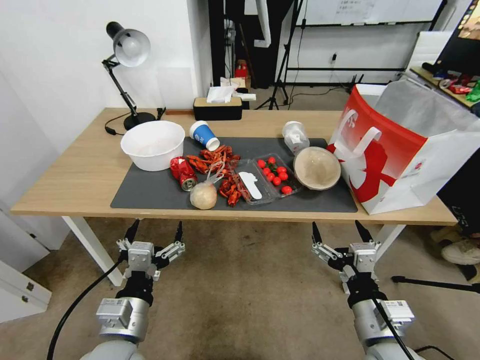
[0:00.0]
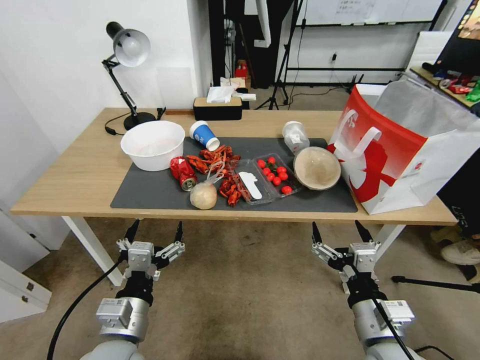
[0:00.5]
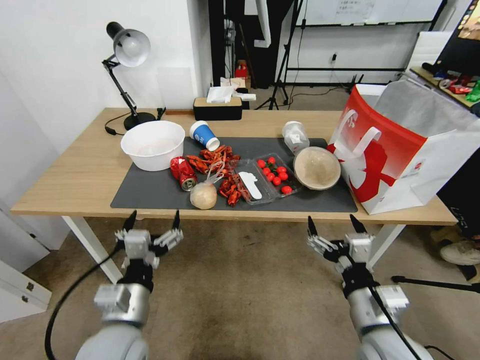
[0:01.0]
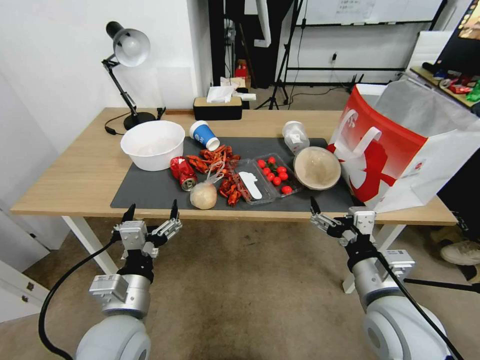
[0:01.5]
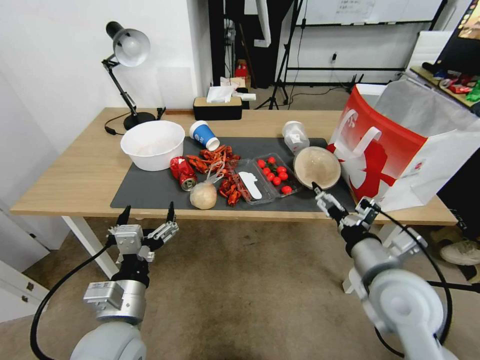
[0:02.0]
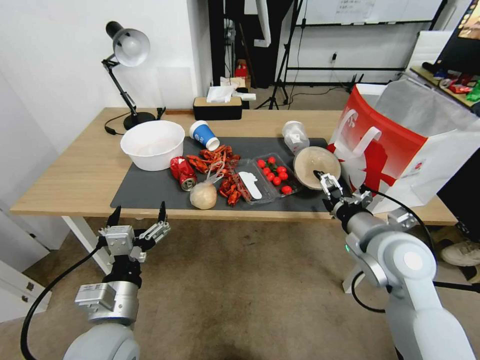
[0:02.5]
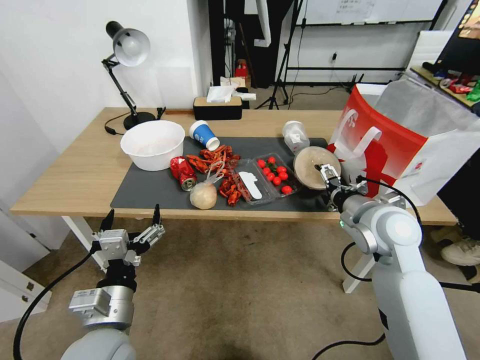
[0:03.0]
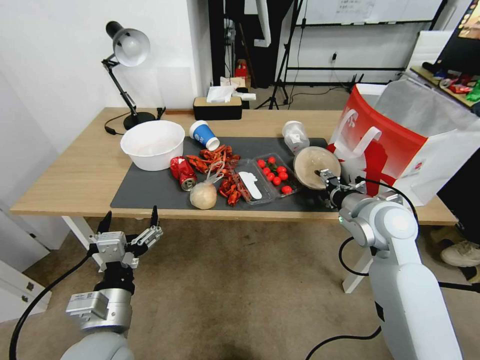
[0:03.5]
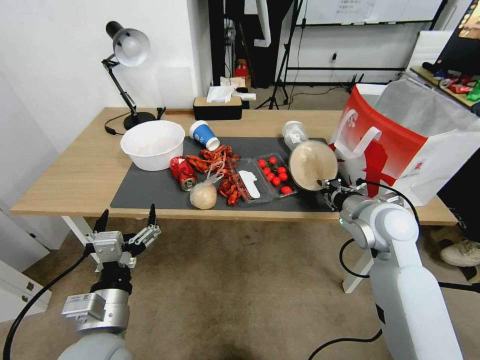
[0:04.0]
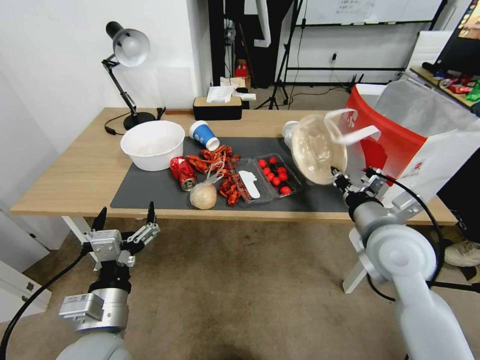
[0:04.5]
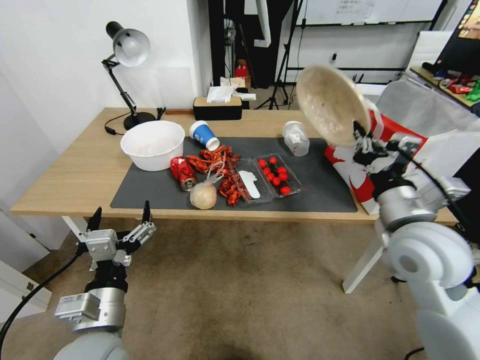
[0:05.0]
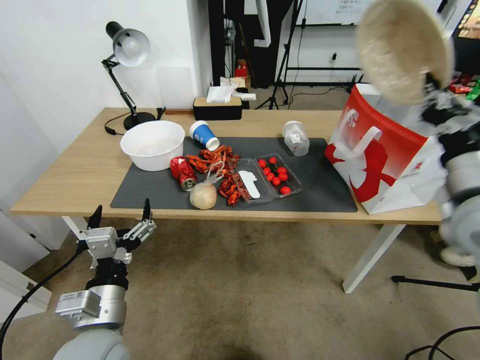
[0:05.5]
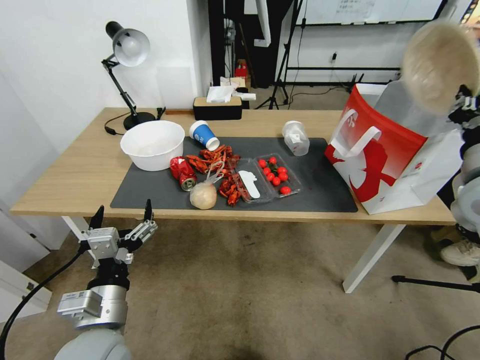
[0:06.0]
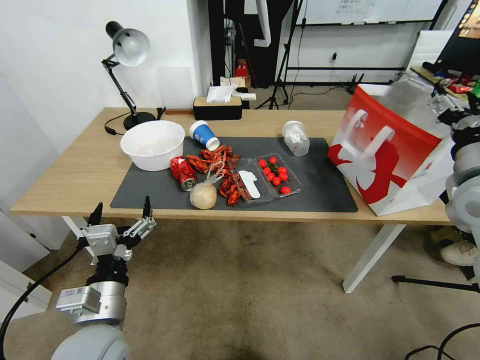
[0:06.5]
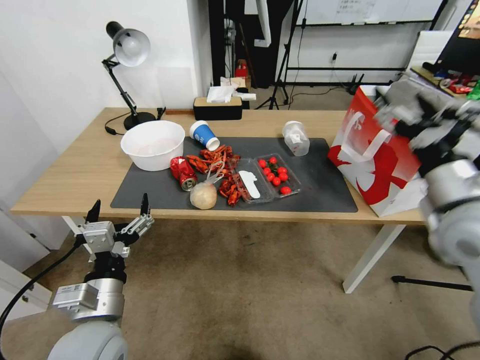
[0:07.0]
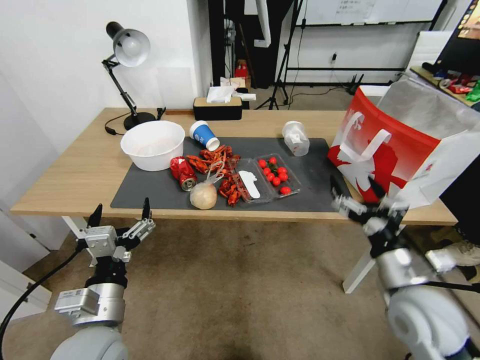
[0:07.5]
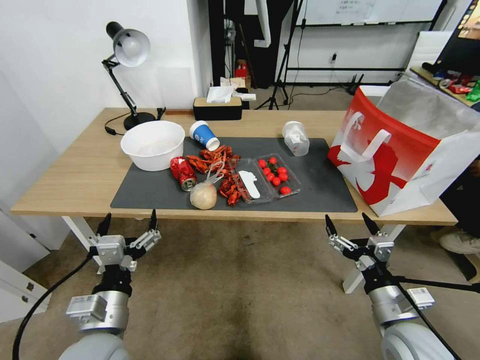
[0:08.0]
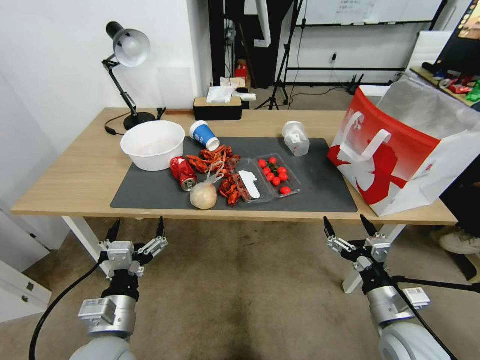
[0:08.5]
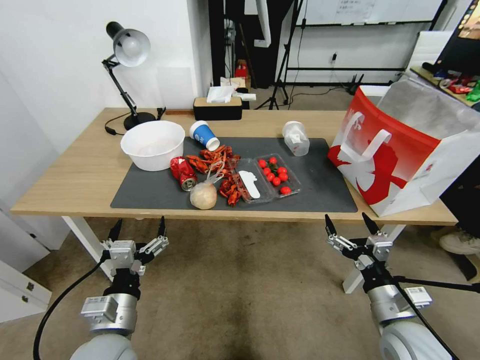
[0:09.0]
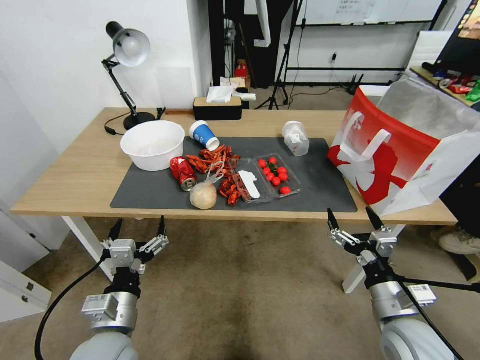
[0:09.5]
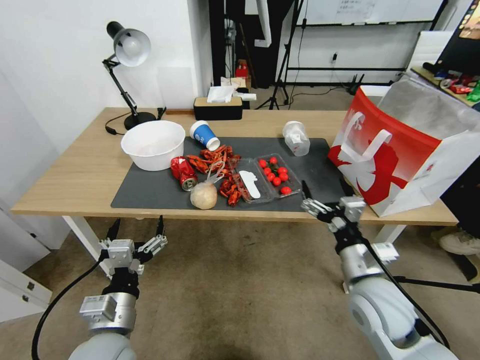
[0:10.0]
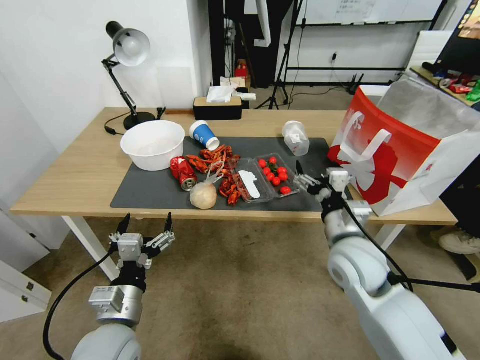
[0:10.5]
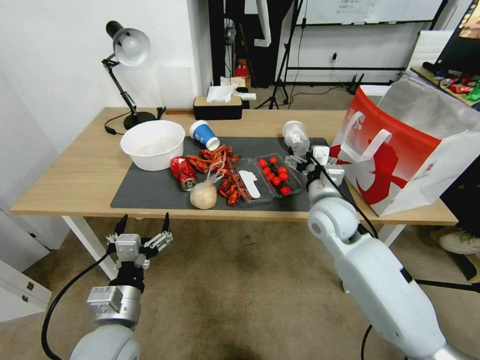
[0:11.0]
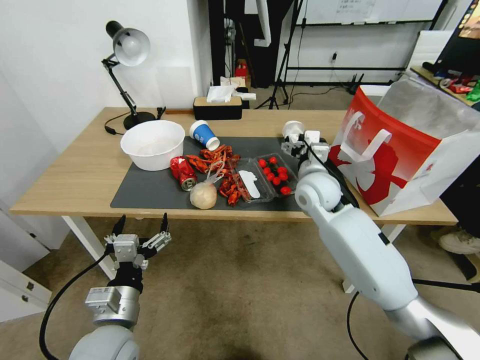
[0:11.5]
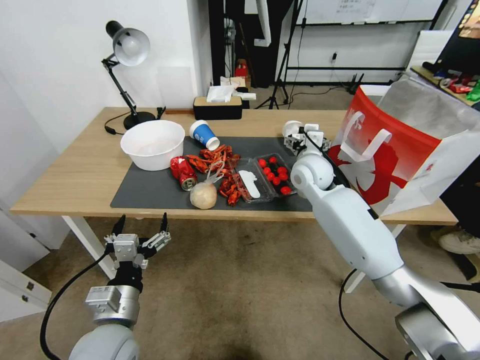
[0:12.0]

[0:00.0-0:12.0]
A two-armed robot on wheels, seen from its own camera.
0:02.0 to 0:04.0: The right gripper is displaced forward by some 10 cm, and closes up.
0:04.0 to 0:06.0: The right gripper goes some 15 cm to the right and upward.
0:06.0 to 0:08.0: The right gripper goes about 30 cm downward and backward, and opens its fingers.
0:08.0 to 0:10.0: The right gripper heads to the left, forward and upward, covering roughly 10 cm.
0:10.0 to 0:12.0: The right gripper shifts about 25 cm forward.

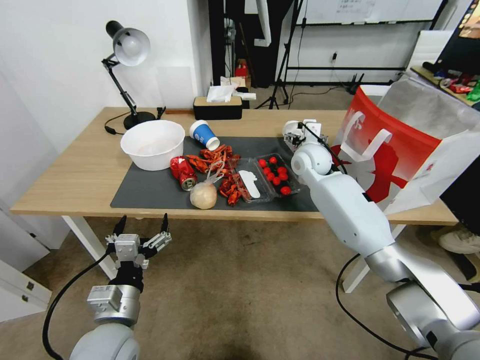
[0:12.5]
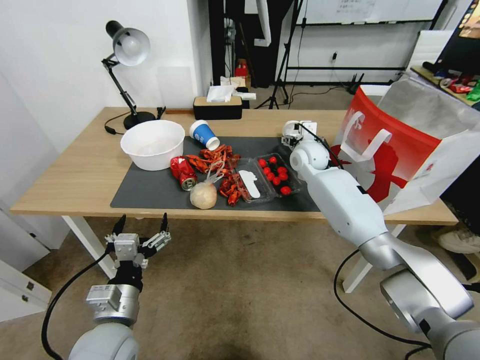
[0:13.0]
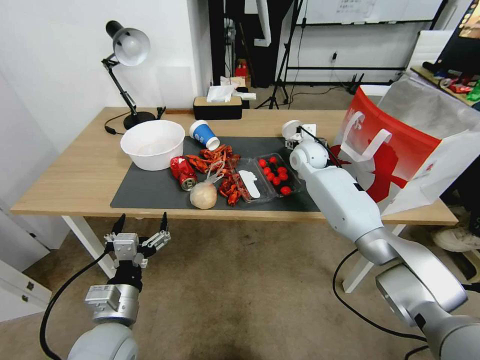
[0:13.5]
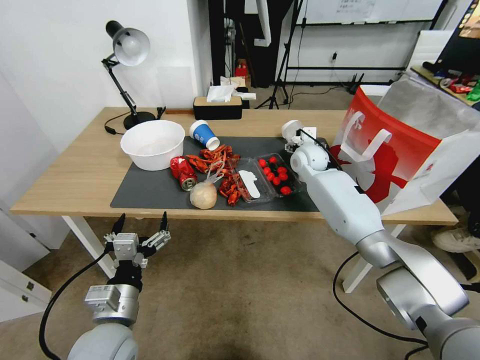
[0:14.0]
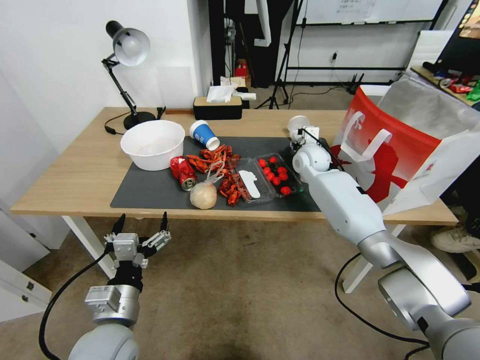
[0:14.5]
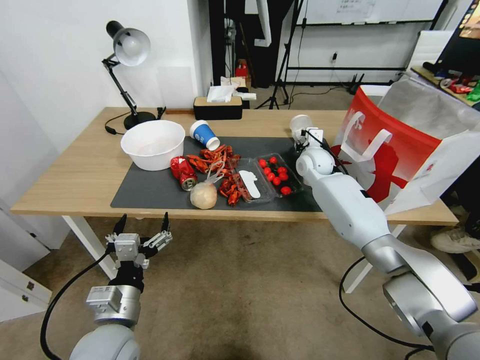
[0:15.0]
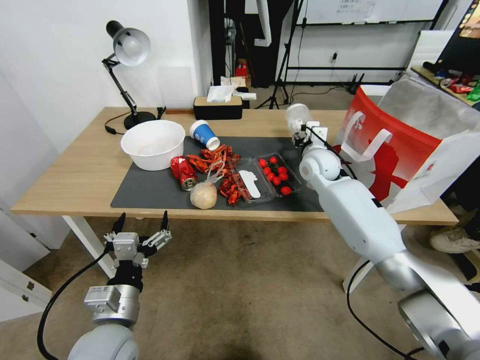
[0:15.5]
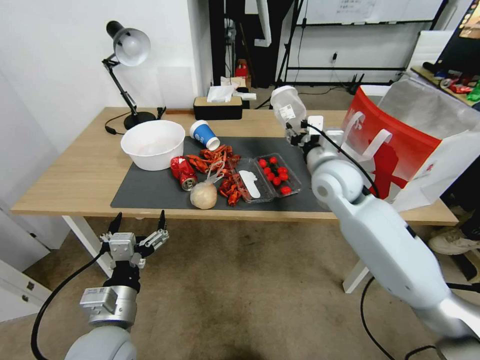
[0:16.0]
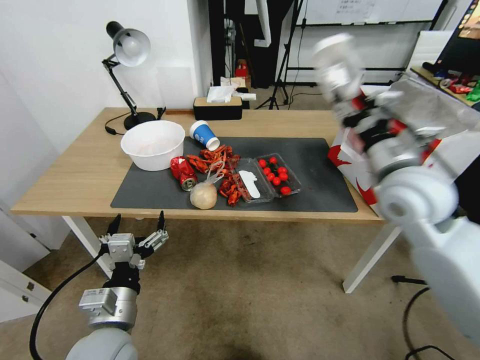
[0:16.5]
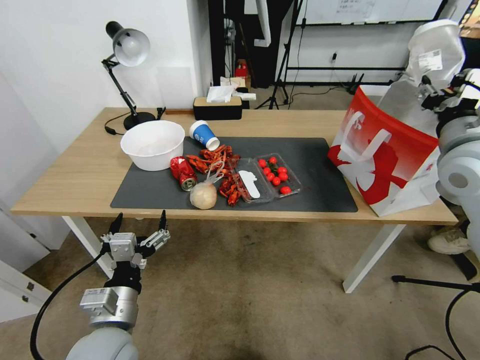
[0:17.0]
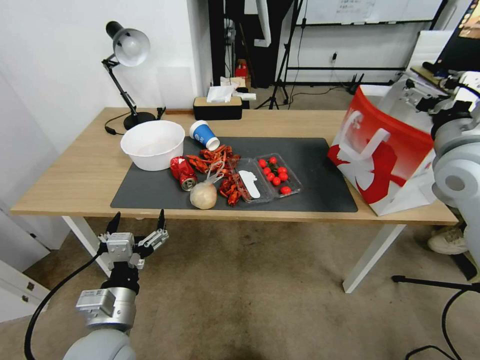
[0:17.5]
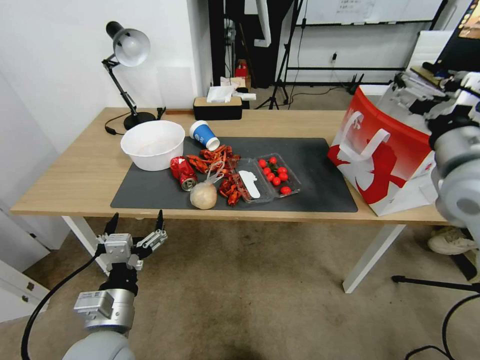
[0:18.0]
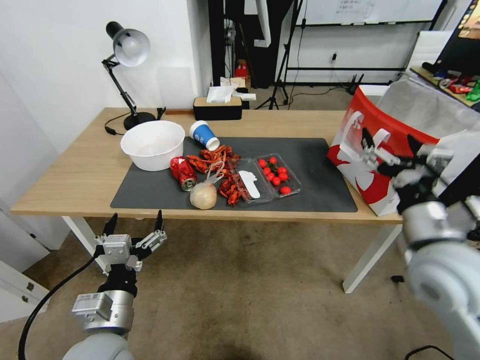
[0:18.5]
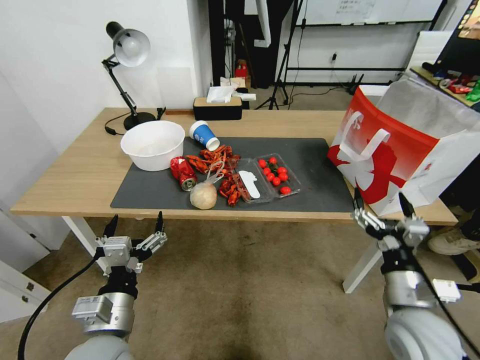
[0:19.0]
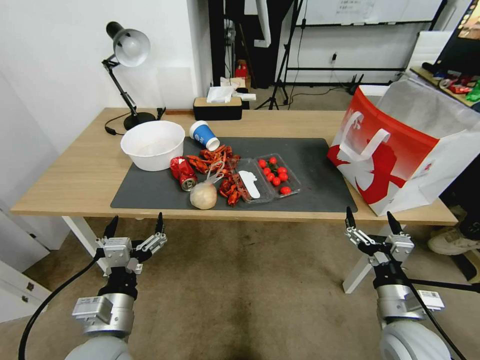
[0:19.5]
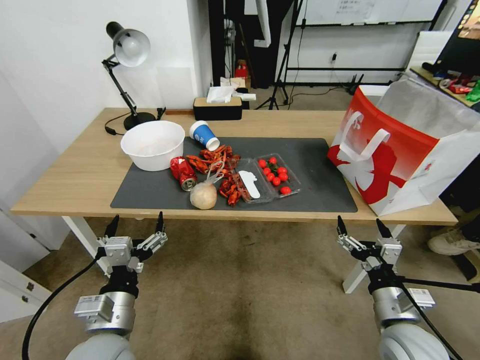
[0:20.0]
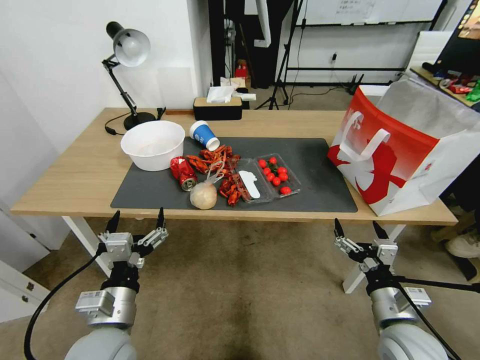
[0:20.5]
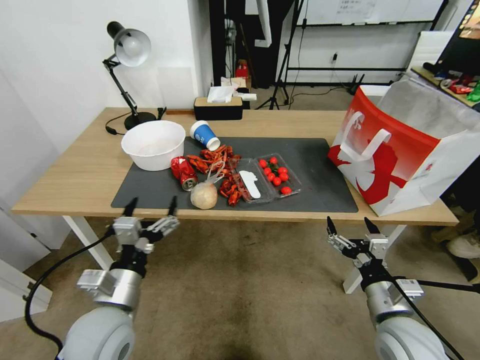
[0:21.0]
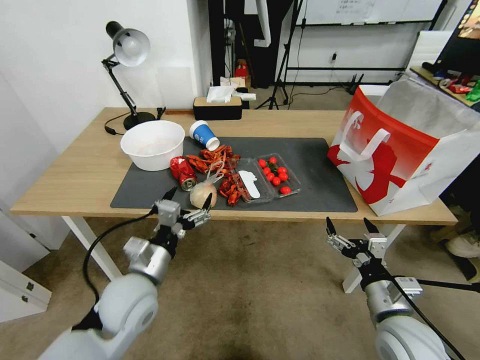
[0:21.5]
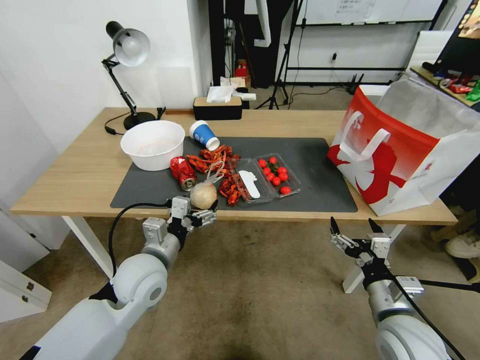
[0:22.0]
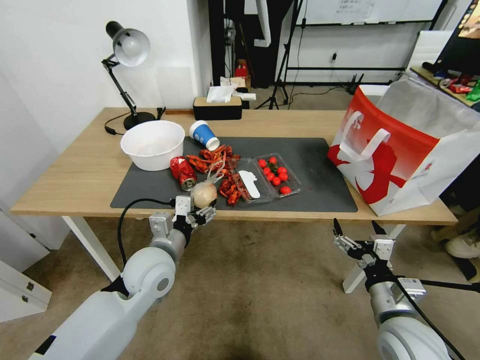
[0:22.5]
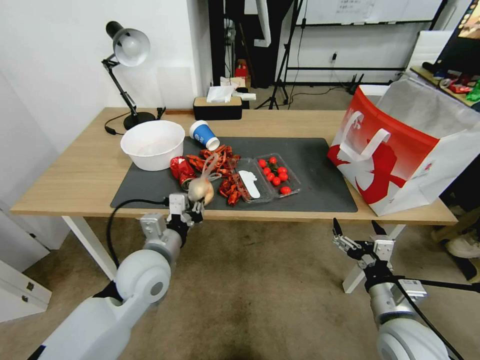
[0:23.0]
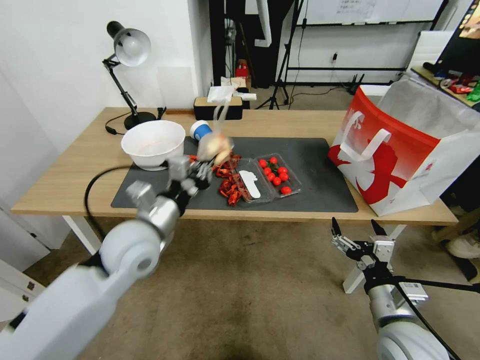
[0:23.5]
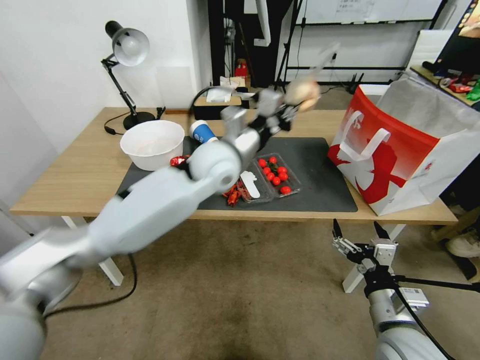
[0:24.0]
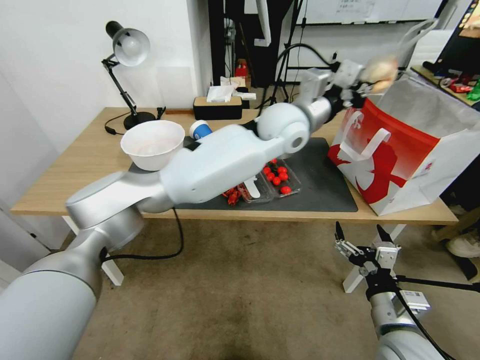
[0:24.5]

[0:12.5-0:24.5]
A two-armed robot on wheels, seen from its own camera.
0:12.5 to 0:14.5: The right gripper moves some 5 cm.
0:14.5 to 0:16.5: The right gripper travels backward and upward by roughly 30 cm.
0:16.5 to 0:18.5: The right gripper is displaced backward and downward by approximately 15 cm, and opens its fingers.
0:18.5 to 0:20.5: The right gripper moves downward, about 20 cm.
0:20.5 to 0:22.5: The left gripper shifts roughly 15 cm forward.
0:22.5 to 0:24.5: The left gripper heads to the right, upward and forward, covering approximately 40 cm, and closes.

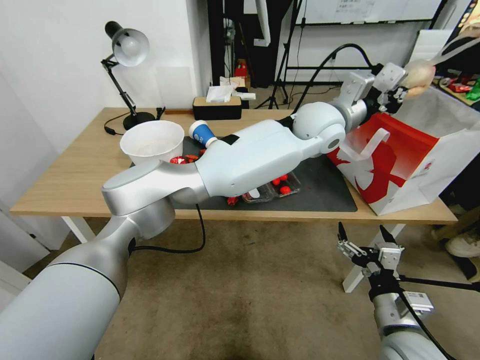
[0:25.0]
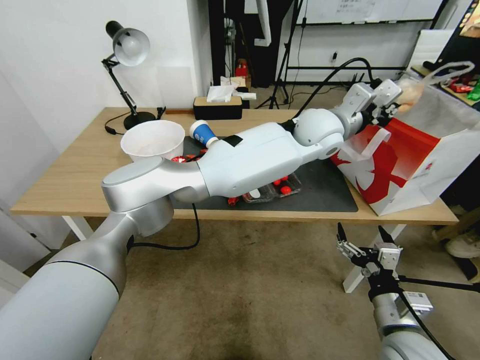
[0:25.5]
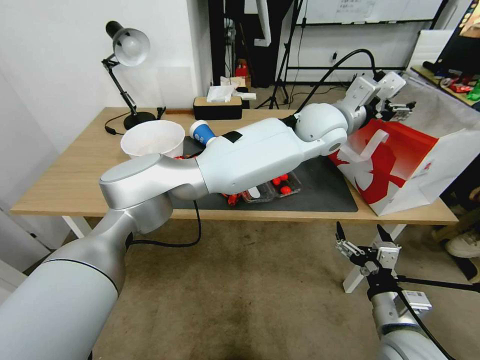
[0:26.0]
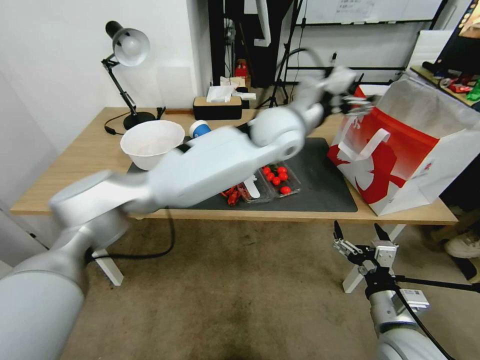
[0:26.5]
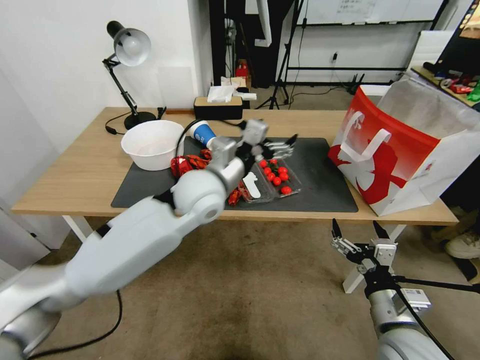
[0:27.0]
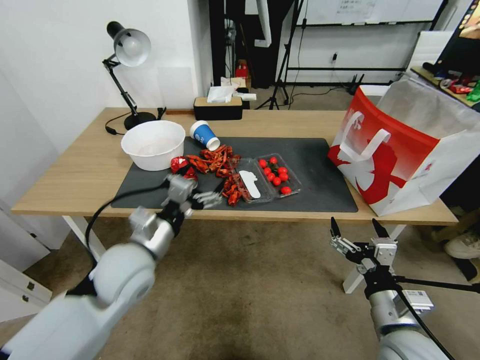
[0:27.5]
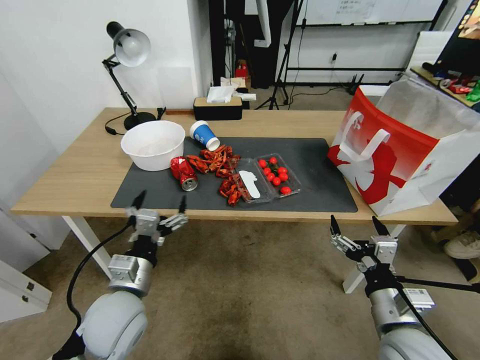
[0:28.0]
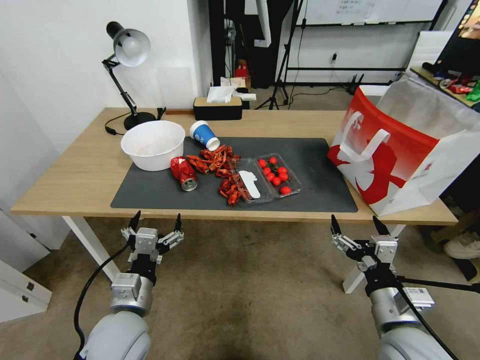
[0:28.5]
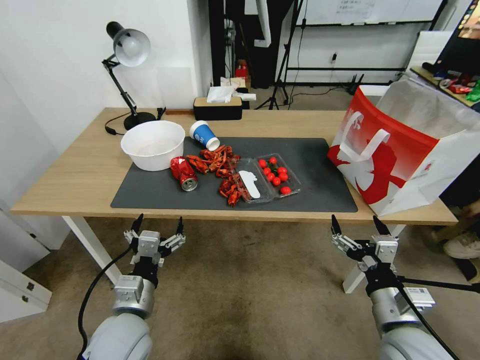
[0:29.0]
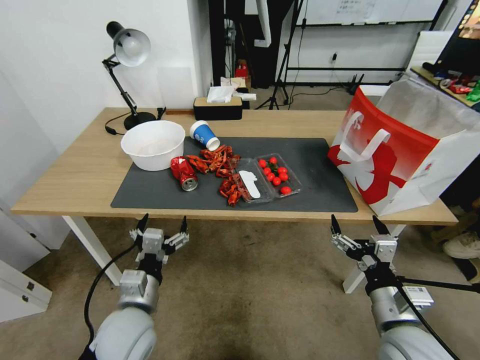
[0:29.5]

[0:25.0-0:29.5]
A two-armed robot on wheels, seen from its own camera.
0:25.0 to 0:27.0: The left gripper travels to the left and backward by about 25 cm, and opens its fingers.
0:27.0 to 0:29.5: The left gripper is displaced backward, downward and to the left by roughly 30 cm.
